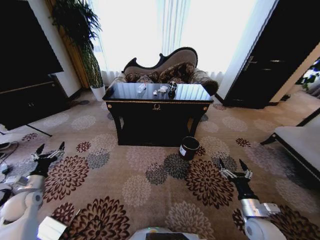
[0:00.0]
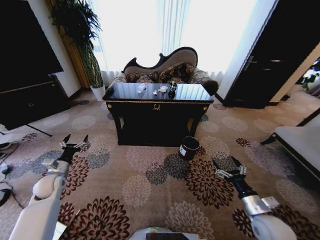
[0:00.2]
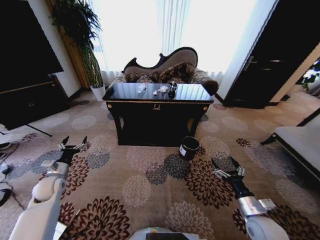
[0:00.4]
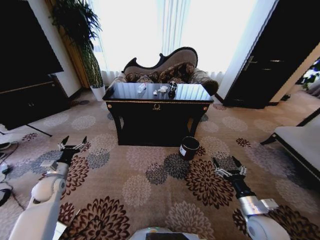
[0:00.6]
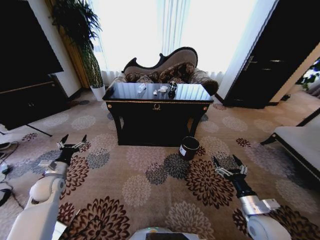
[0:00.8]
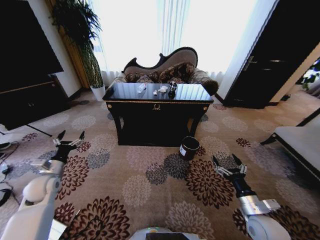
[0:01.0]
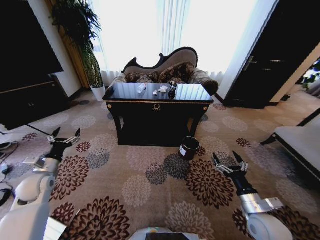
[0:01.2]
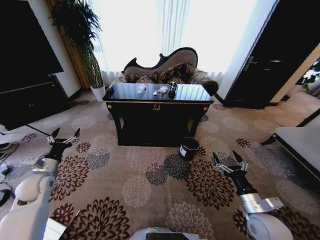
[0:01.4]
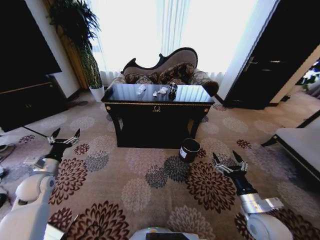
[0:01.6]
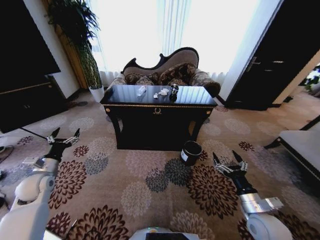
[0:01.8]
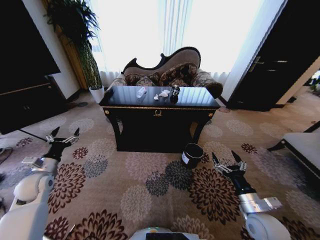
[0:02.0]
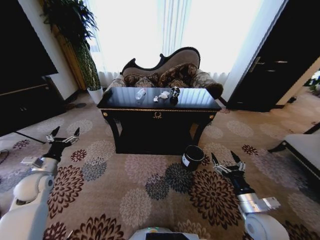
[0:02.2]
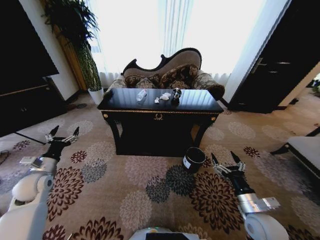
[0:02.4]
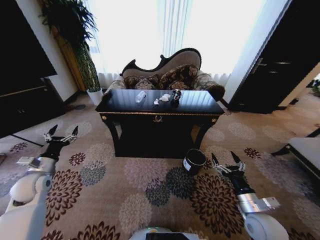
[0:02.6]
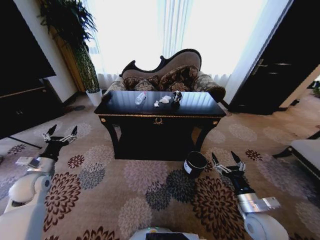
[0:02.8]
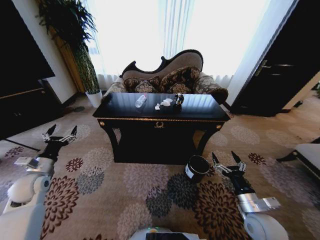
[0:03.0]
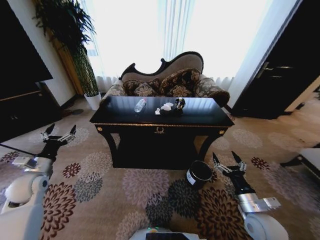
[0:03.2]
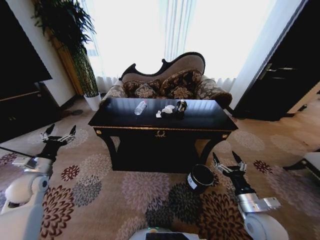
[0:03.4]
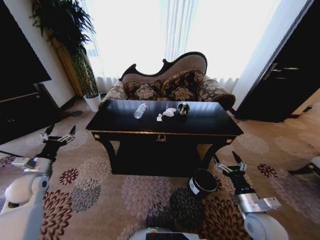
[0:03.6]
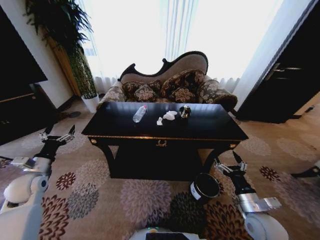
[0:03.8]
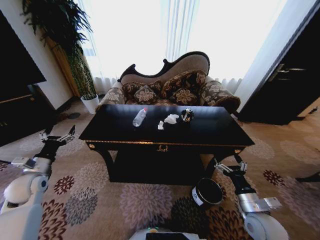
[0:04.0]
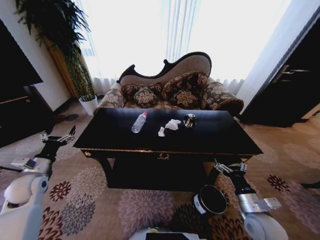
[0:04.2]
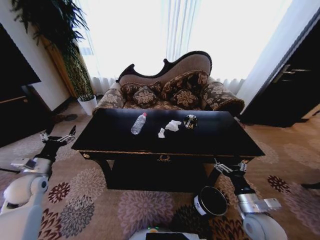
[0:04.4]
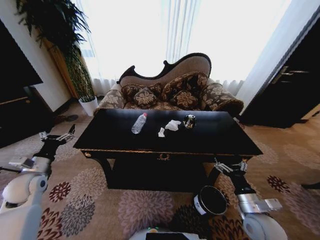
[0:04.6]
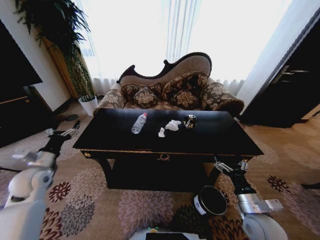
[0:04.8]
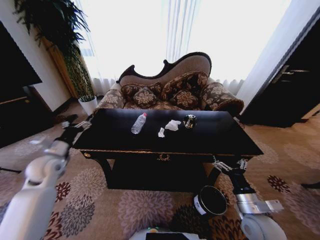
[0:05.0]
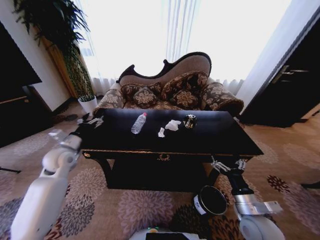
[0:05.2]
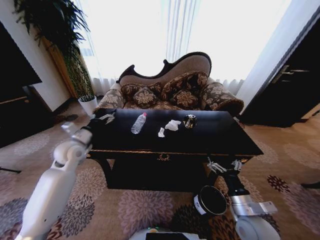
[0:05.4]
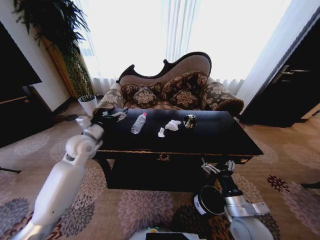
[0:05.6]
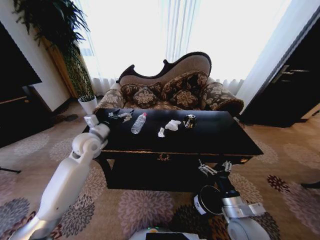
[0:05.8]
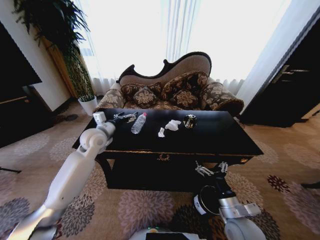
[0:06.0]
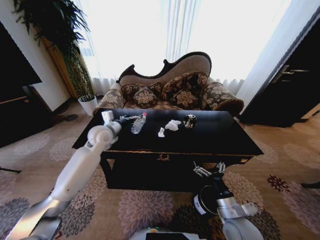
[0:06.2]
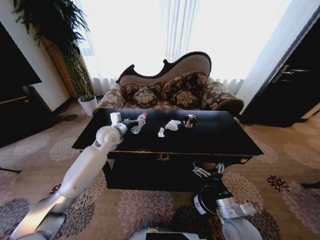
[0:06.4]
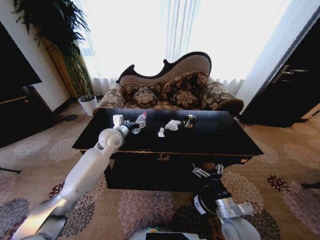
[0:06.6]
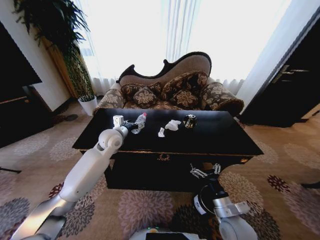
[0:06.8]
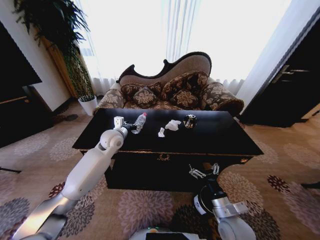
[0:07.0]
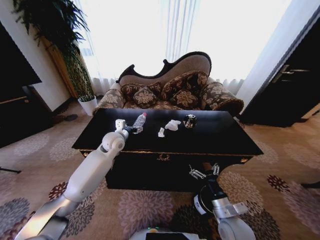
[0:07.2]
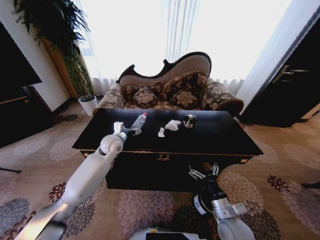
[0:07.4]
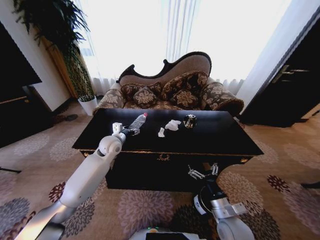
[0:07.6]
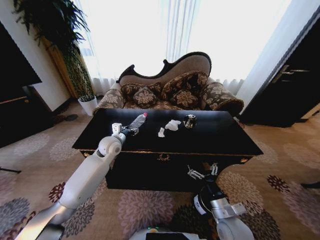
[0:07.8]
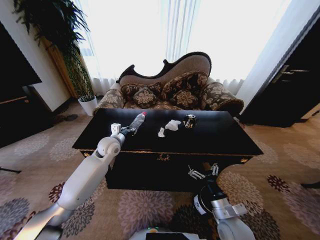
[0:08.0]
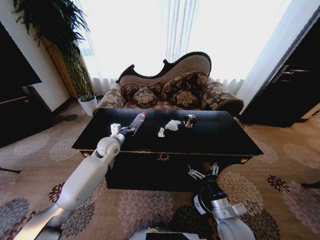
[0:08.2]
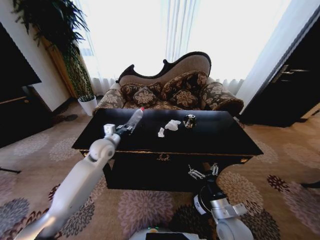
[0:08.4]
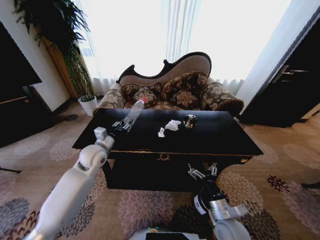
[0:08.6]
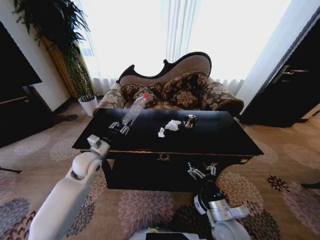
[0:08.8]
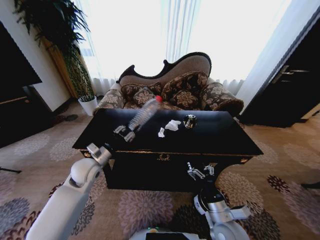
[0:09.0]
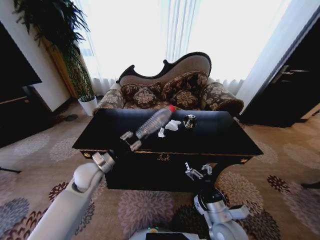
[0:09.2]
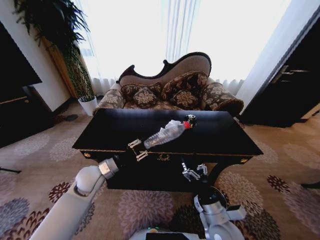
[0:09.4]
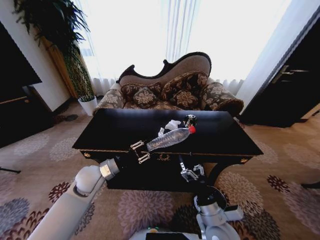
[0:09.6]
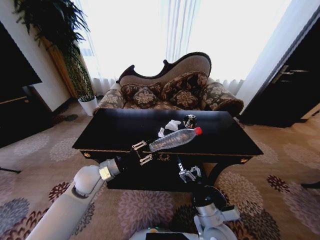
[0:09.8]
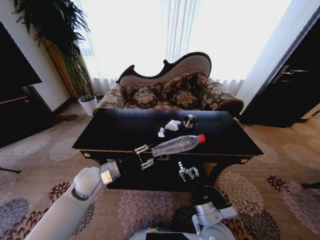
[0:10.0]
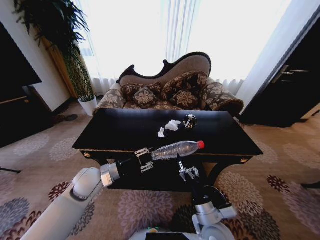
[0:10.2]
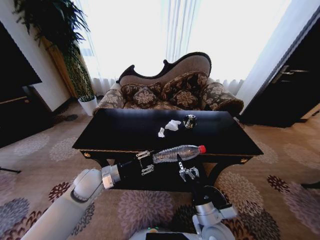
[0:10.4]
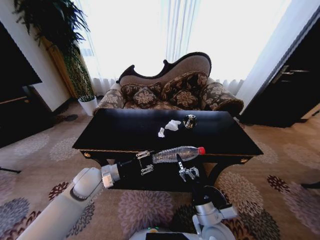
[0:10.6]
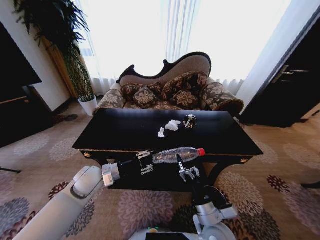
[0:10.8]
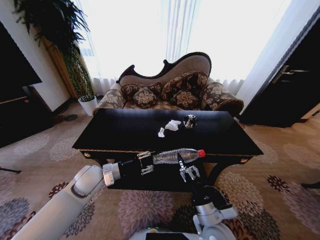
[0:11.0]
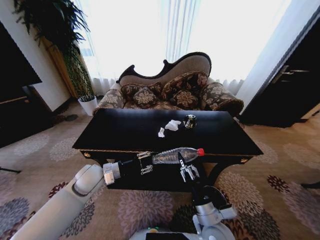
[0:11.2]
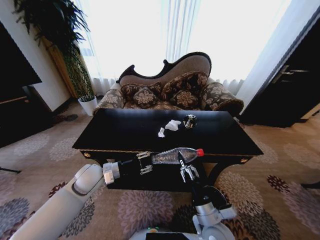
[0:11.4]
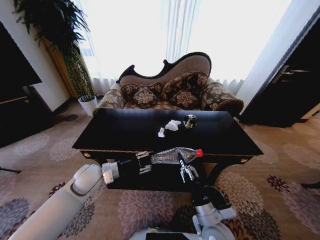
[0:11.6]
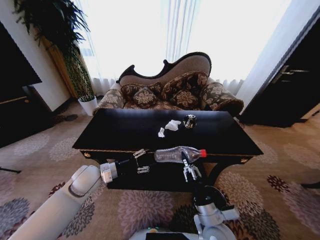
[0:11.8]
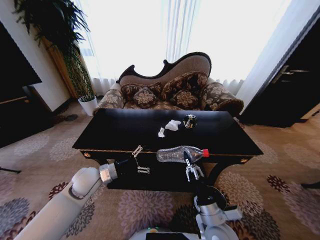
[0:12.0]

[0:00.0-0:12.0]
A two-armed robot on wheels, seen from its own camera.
Task of the whole recording: Move to the front of the table and place the trash on the table into the trash bin.
0:04.4 to 0:06.0: The left gripper moves to the right, forward and upward, some 30 cm. The right gripper shifts approximately 10 cm to the left.
0:06.0 to 0:07.6: The left gripper shifts approximately 5 cm downward.
0:07.6 to 0:09.0: The left gripper shifts approximately 15 cm backward and to the left, and closes.
0:09.0 to 0:10.4: The left gripper moves approximately 5 cm.
0:10.4 to 0:12.0: The right gripper closes, while the left gripper opens.

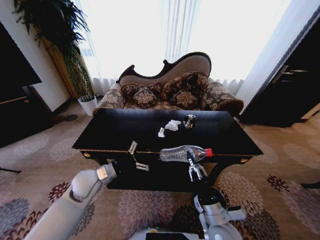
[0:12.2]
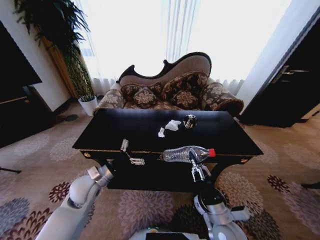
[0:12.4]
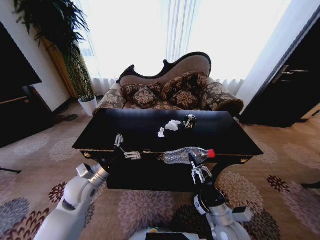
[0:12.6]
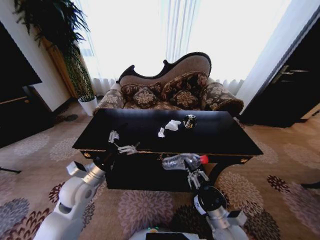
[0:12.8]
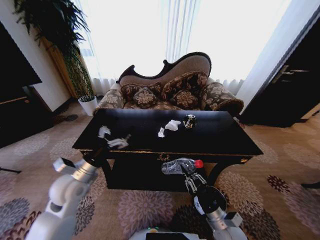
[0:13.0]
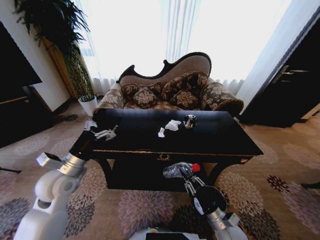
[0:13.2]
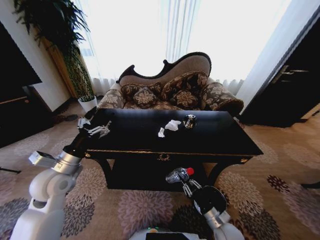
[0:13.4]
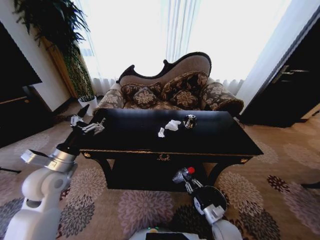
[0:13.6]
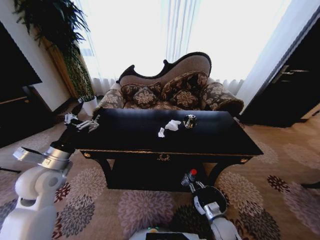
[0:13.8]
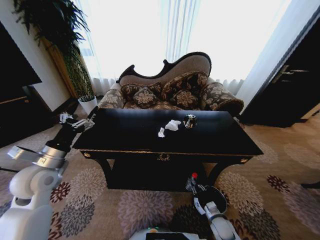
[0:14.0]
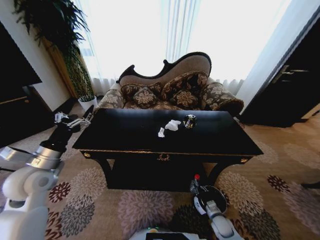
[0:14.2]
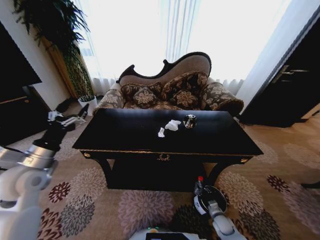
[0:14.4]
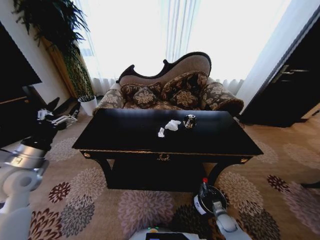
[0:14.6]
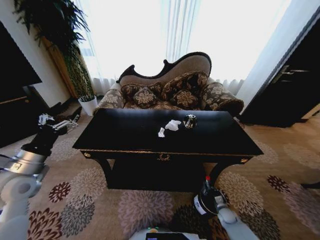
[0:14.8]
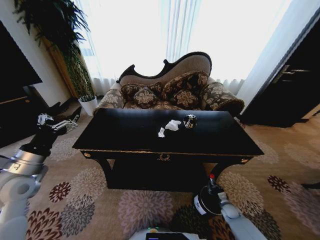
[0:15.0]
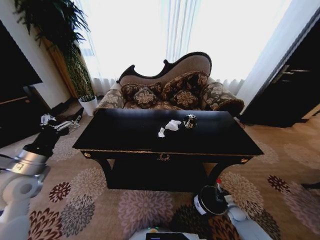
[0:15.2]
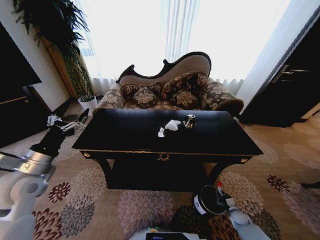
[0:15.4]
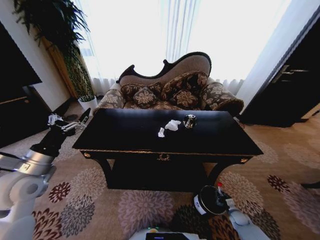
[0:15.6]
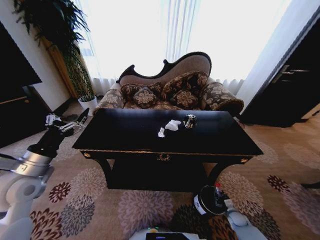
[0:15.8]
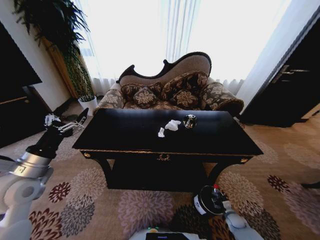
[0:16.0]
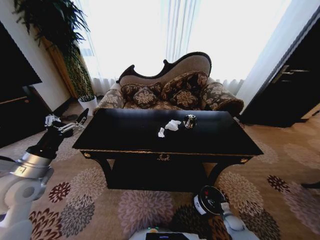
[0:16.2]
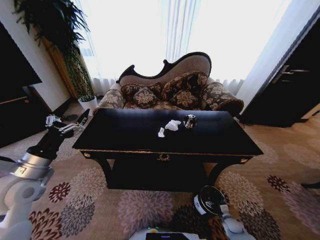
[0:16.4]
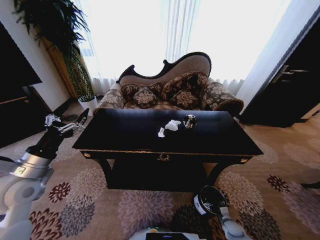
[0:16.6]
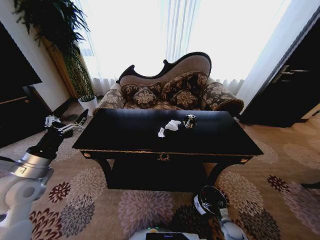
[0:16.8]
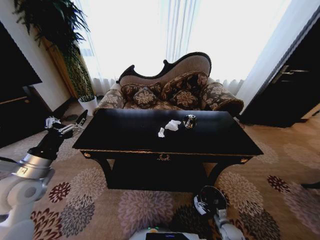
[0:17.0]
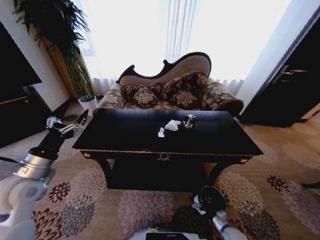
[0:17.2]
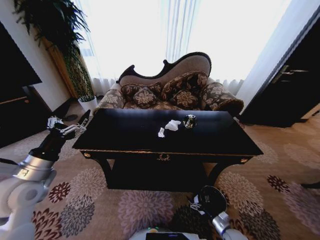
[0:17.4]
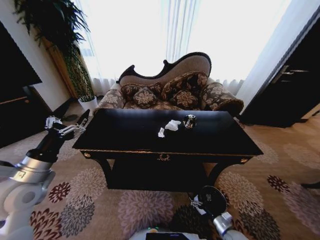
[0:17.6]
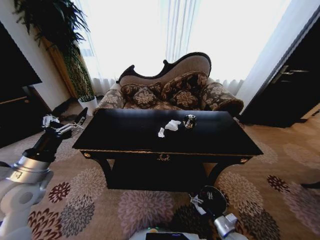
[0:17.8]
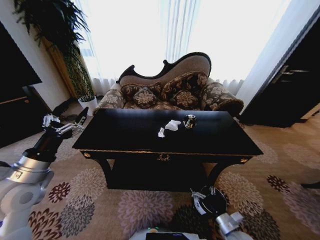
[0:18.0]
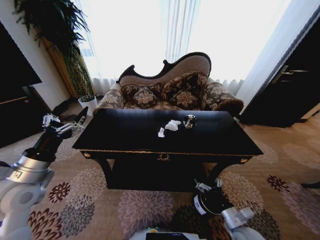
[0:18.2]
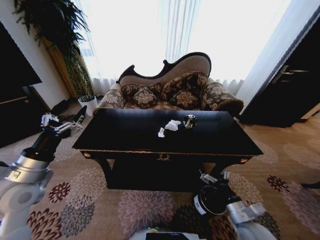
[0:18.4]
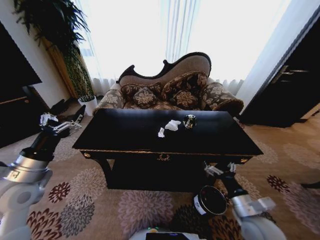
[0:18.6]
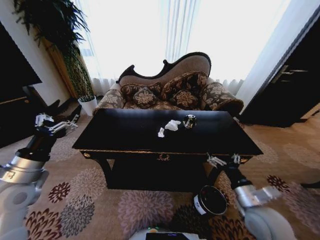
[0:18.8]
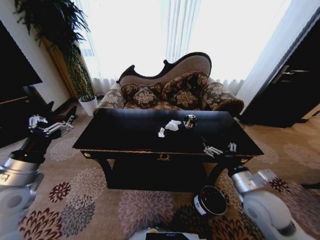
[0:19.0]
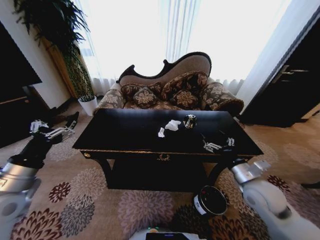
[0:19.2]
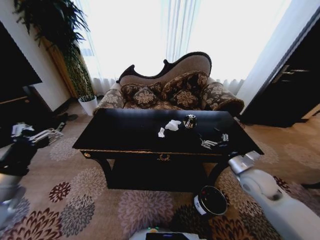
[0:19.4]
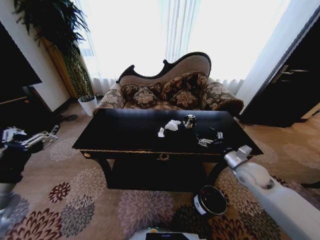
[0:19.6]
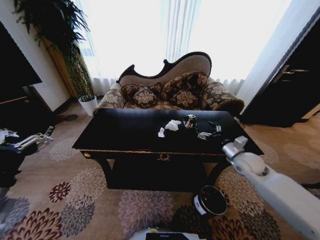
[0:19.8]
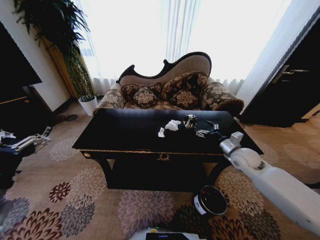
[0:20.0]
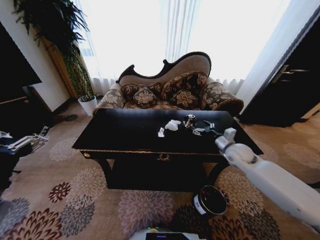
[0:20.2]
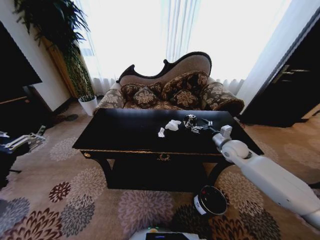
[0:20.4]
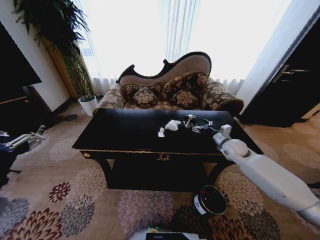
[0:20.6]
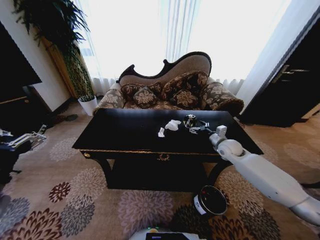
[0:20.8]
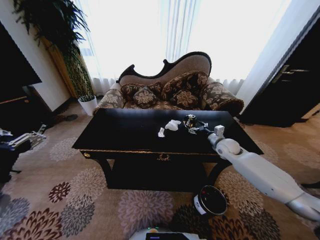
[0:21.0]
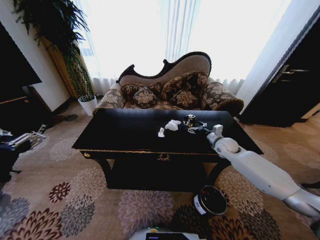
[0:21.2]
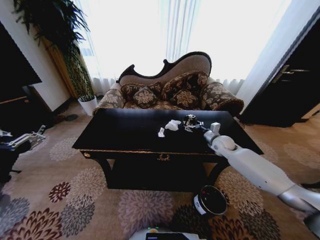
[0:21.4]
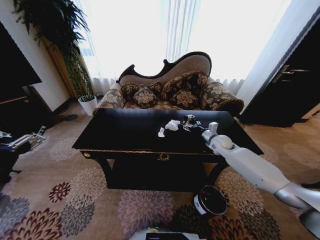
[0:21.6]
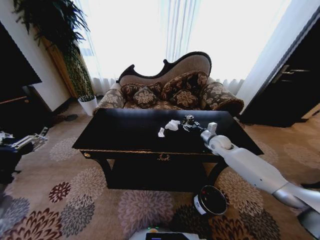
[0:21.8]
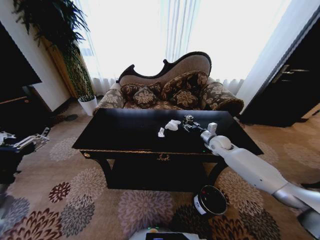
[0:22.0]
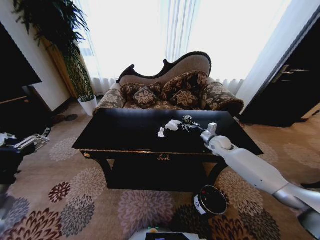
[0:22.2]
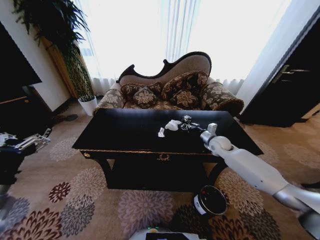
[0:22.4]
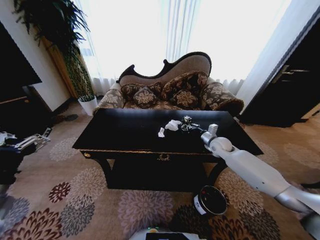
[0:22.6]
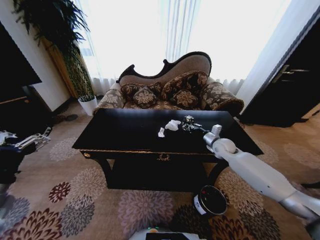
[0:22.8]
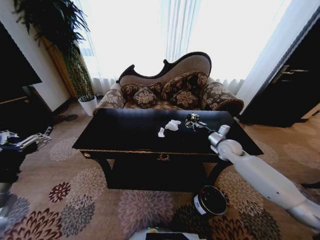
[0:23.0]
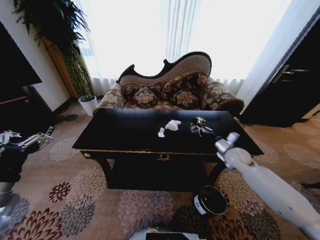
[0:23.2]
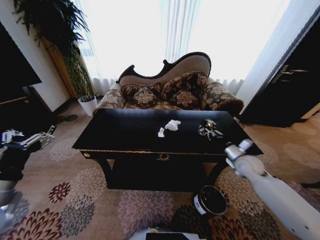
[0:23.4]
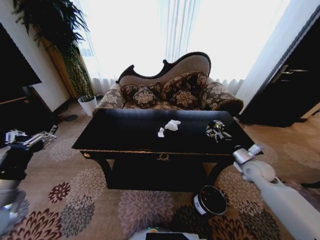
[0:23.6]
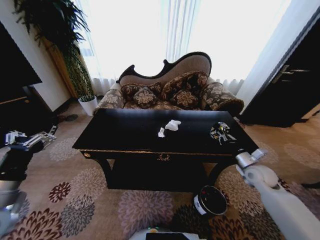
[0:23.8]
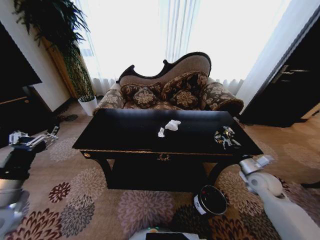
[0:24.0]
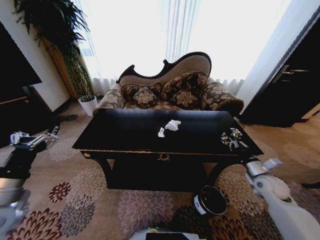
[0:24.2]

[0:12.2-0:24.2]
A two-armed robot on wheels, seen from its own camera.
Task of the whole recording: Move to the front of the table and place the trash on the table into the trash bin.
0:12.2 to 0:13.8: The left gripper is displaced to the left and upward by some 15 cm. The right gripper heads downward and to the right, covering some 20 cm.
0:13.8 to 0:15.2: The right gripper shifts about 20 cm to the right and downward, while the left gripper shifts by approximately 5 cm.
0:15.2 to 0:16.6: The right gripper moves backward and to the left, about 10 cm, and opens its fingers.
0:16.6 to 0:18.2: The right gripper shifts about 25 cm upward and to the left.
0:18.2 to 0:19.8: The right gripper moves forward and upward, some 25 cm; the left gripper travels backward by about 10 cm.
0:19.8 to 0:21.2: The right gripper shifts some 10 cm forward.
0:21.2 to 0:22.6: The right gripper closes.
0:22.6 to 0:24.2: The right gripper is displaced backward and to the right by some 25 cm.
